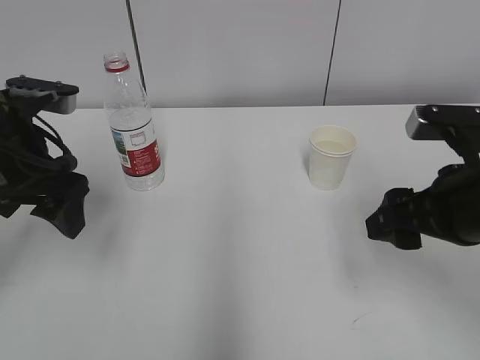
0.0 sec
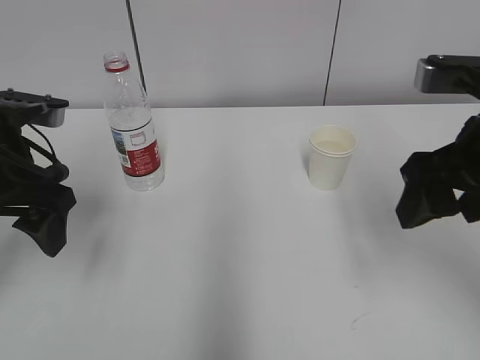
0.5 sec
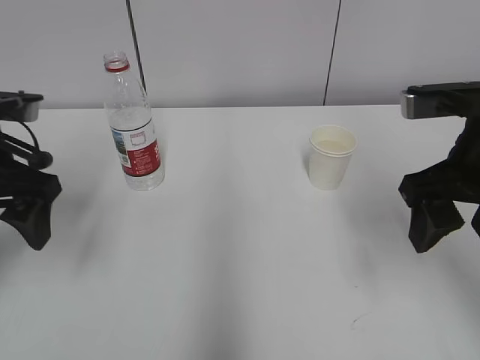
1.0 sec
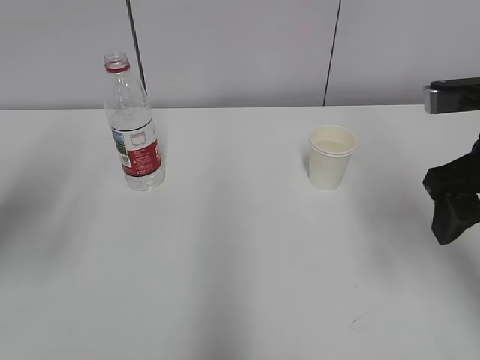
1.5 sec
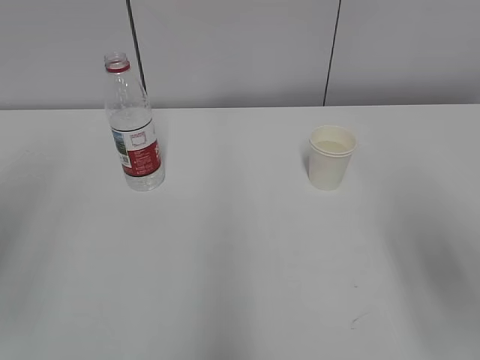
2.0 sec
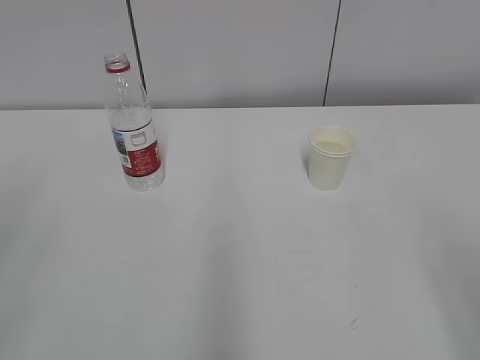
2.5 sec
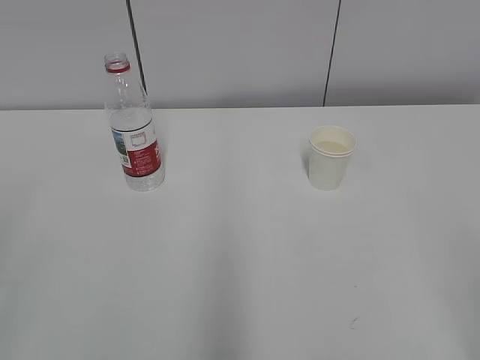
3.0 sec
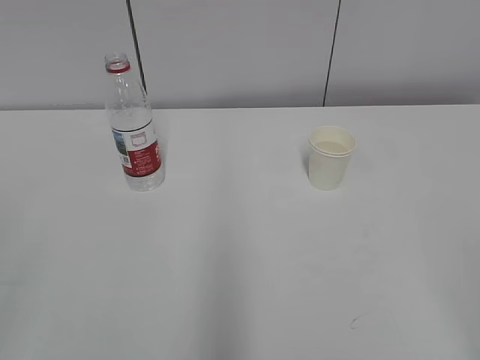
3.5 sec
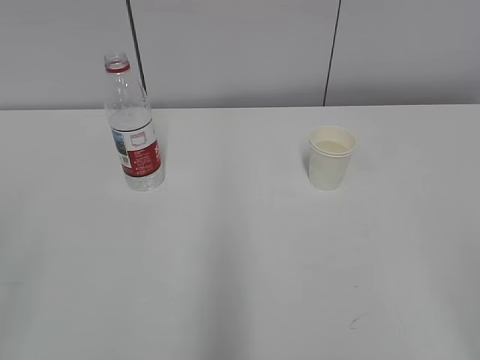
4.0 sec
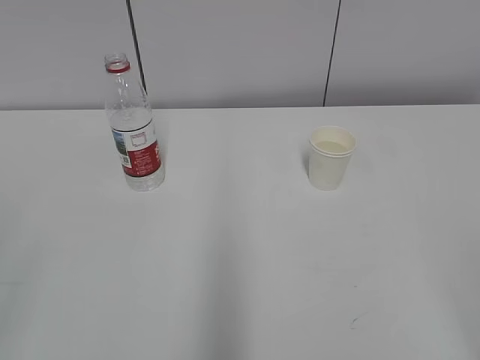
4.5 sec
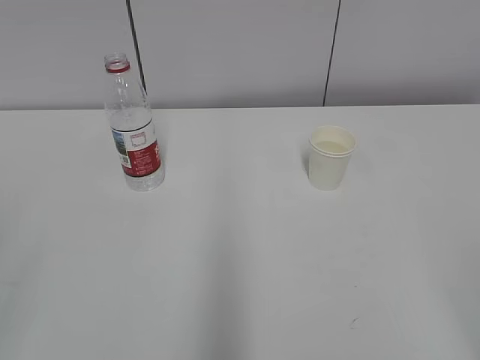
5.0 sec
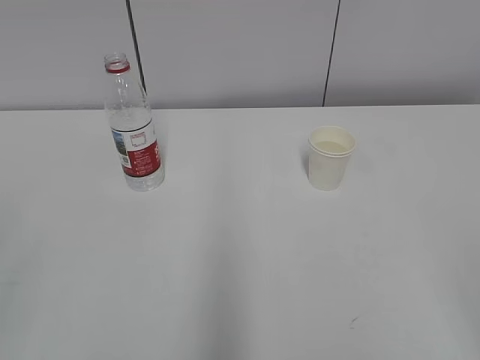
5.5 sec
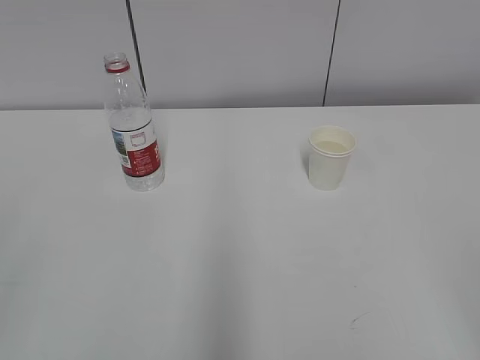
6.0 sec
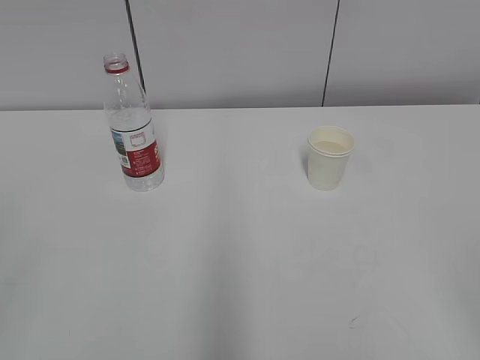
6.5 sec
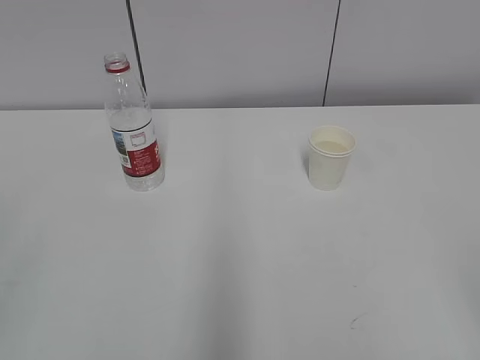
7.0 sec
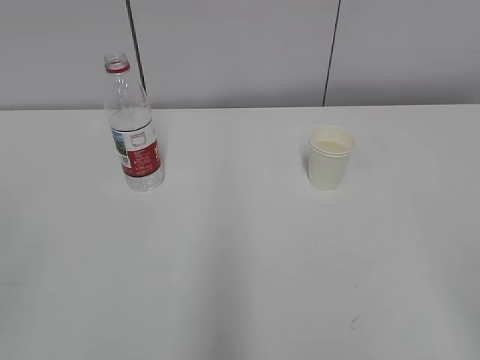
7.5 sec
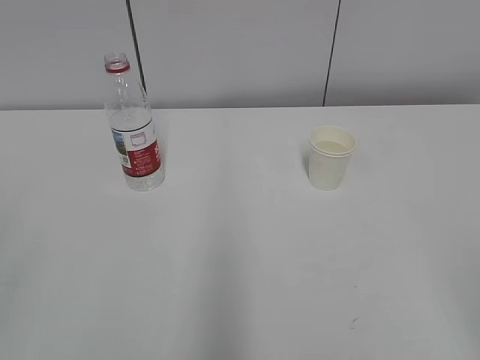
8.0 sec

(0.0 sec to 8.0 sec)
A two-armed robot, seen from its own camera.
0.0 sec - 2.0 sec: The right gripper travels backward and upward by approximately 10 cm. Meanwhile the left gripper goes roughly 20 cm backward, upward and to the left.
2.0 sec - 4.0 sec: The right gripper moves backward, about 15 cm.

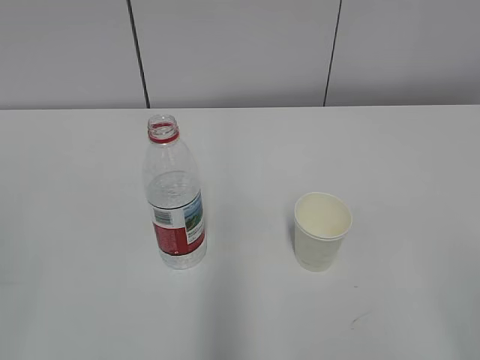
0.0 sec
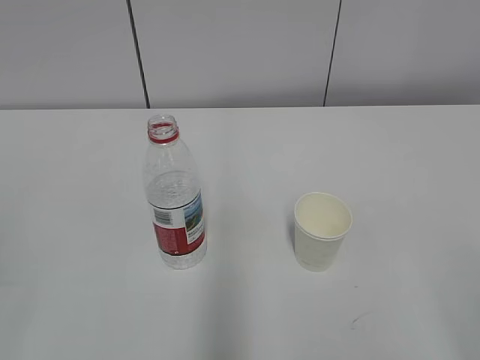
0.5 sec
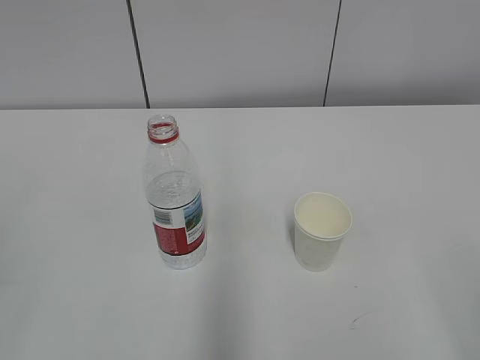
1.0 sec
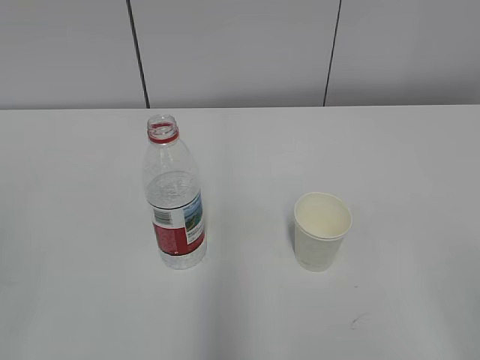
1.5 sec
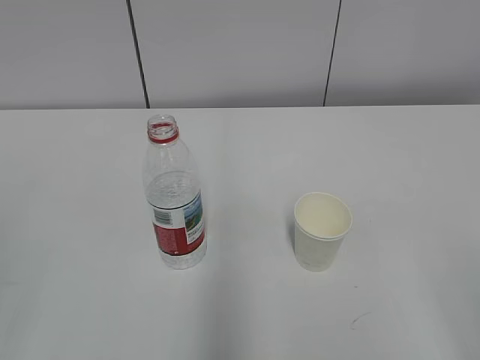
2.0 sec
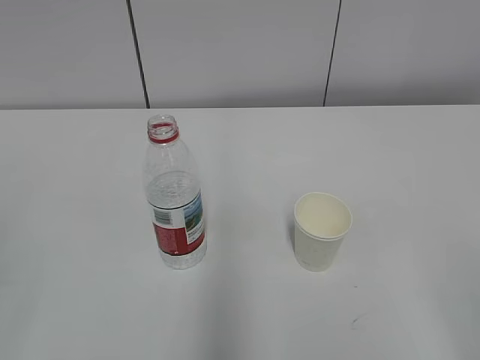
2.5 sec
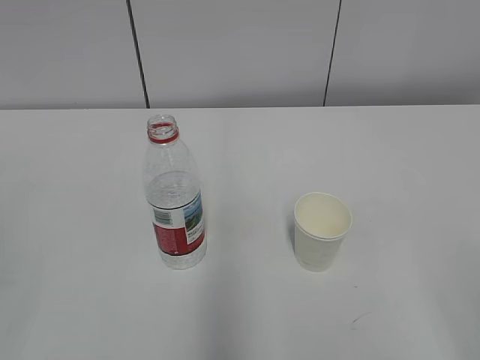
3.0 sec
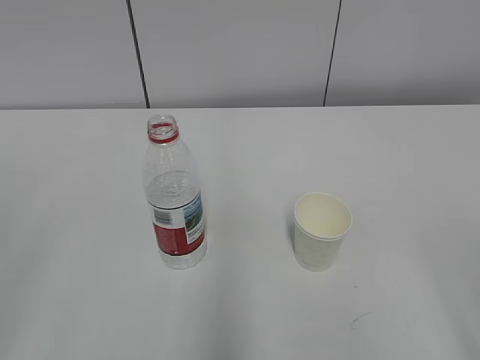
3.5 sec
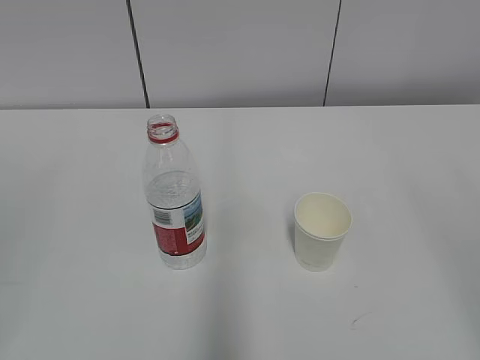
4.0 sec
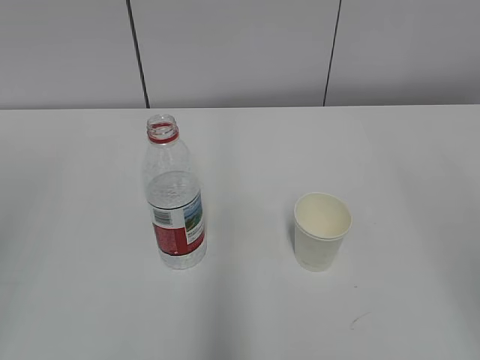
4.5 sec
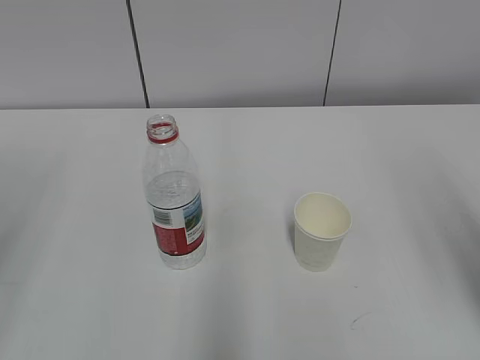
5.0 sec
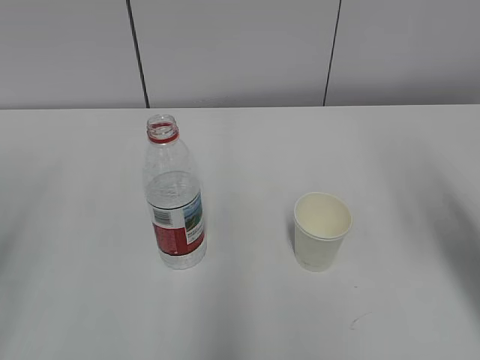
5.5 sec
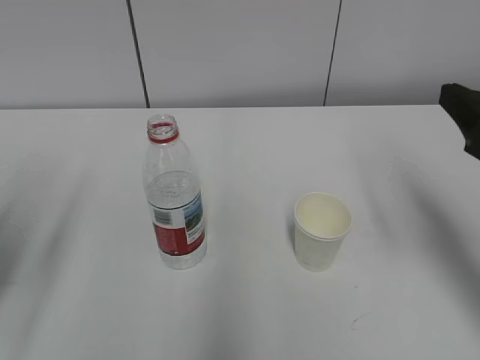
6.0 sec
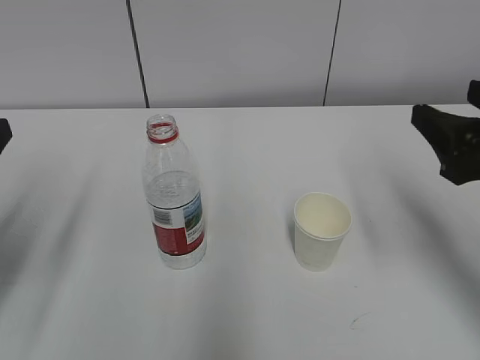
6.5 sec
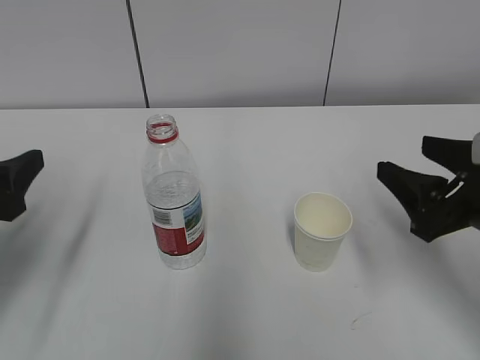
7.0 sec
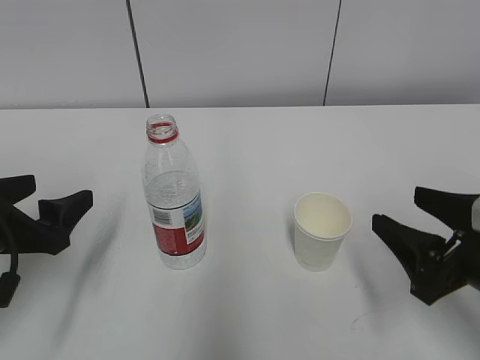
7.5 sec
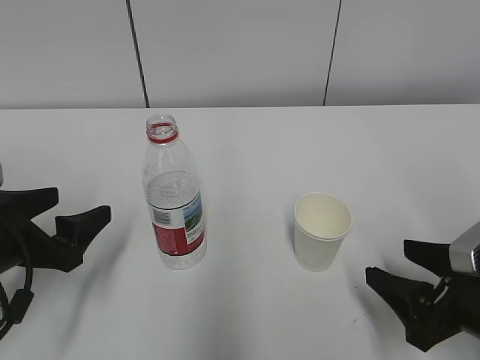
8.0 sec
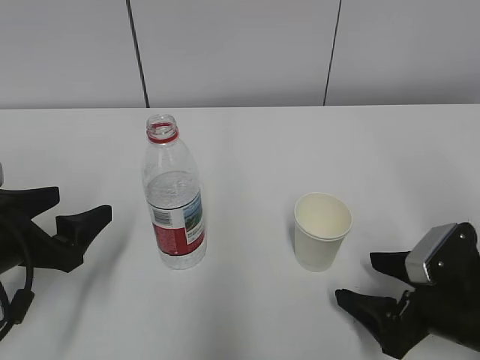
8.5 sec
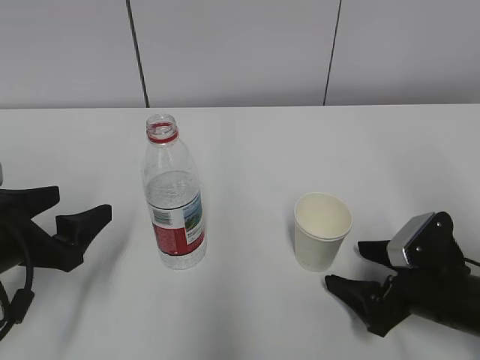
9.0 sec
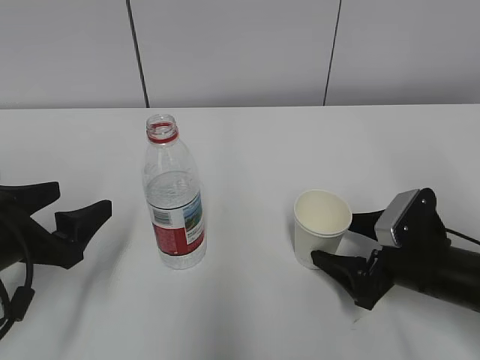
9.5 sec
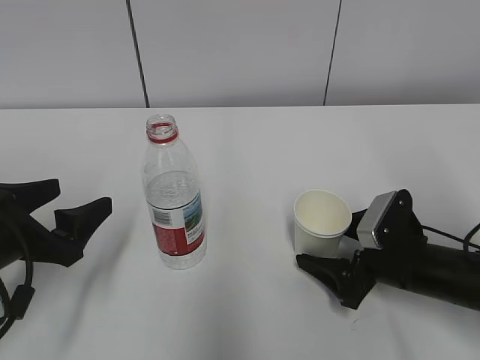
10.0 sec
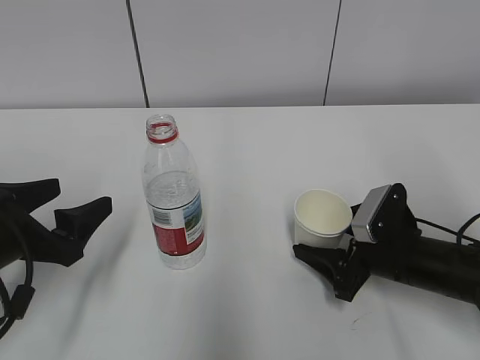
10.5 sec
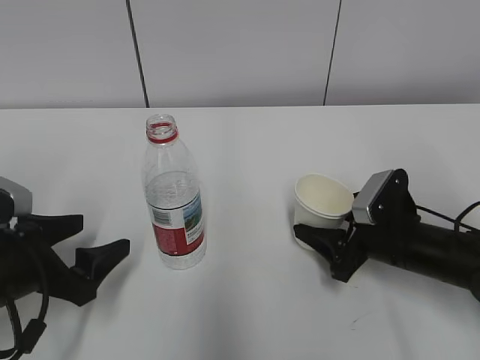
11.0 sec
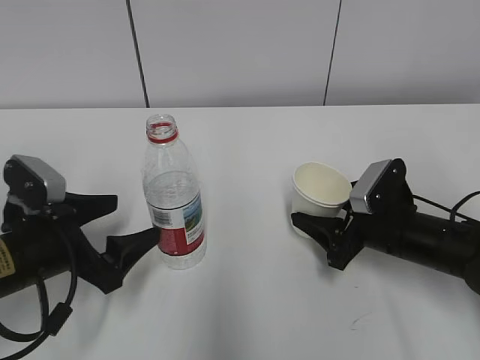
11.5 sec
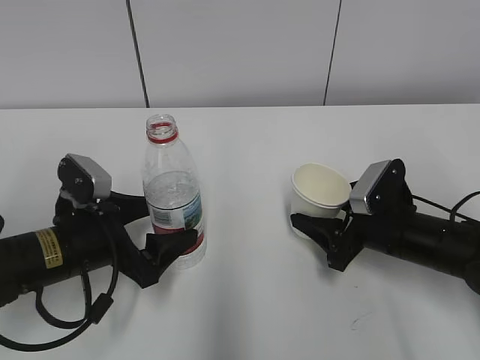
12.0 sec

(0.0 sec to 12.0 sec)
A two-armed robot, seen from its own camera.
Step, 0.0 sec - 8.5 sec: Grab the paper cup with the right hand.
Step, 9.0 sec - 11.0 sec: Grab the water bottle with the left hand.
4.0 sec - 6.0 sec: The right gripper is displaced forward by about 20 cm. Meanwhile the left gripper is displaced forward and downward by roughly 20 cm.
6.0 sec - 8.0 sec: Both grippers travel together downward, roughly 15 cm.
8.0 sec - 10.0 sec: The right gripper shifts about 10 cm forward and downward, and opens.
10.0 sec - 12.0 sec: The left gripper is displaced to the right by about 5 cm, while the right gripper closes.

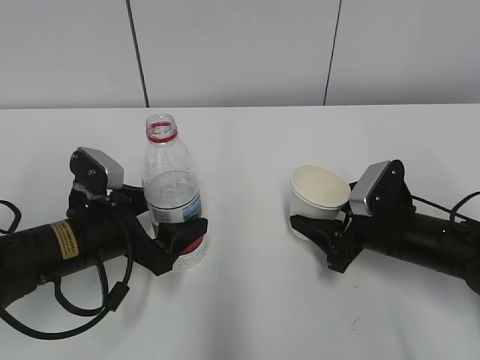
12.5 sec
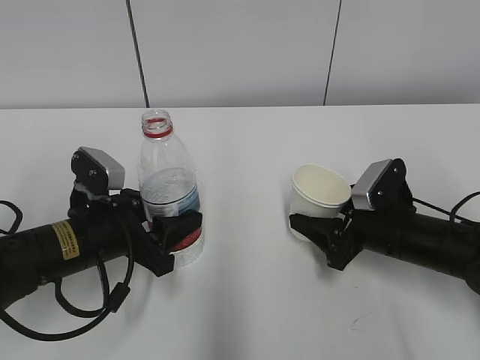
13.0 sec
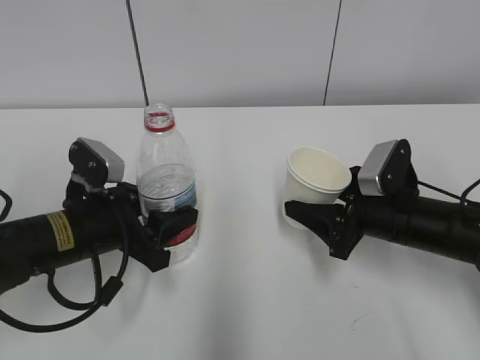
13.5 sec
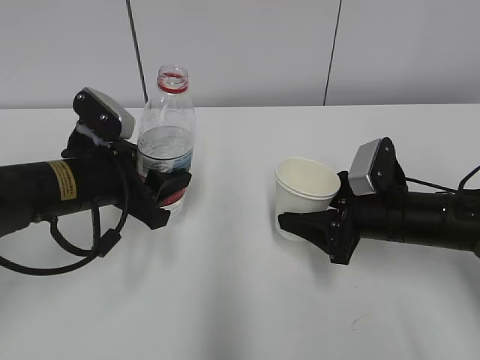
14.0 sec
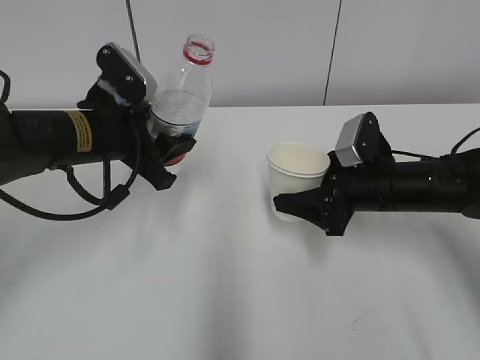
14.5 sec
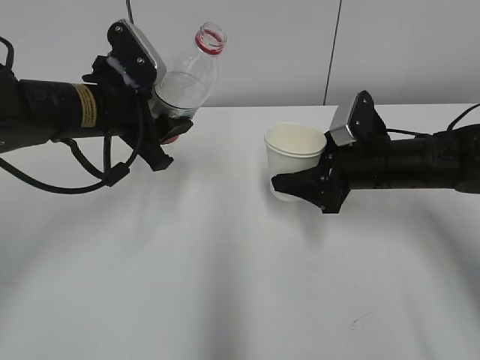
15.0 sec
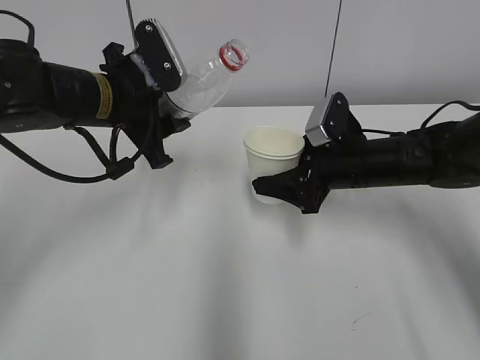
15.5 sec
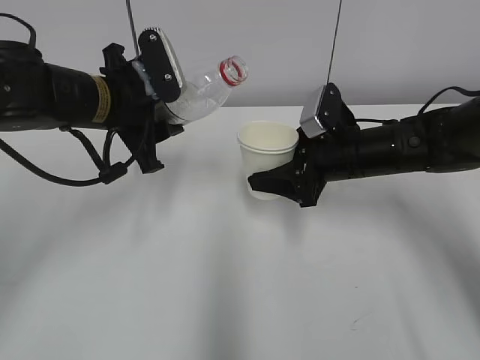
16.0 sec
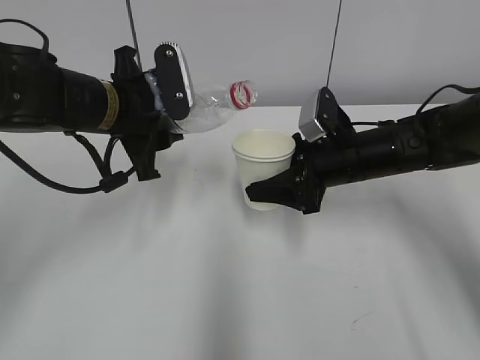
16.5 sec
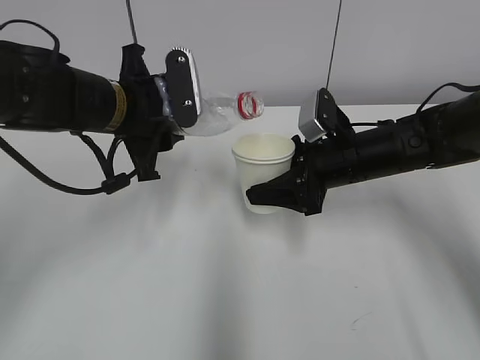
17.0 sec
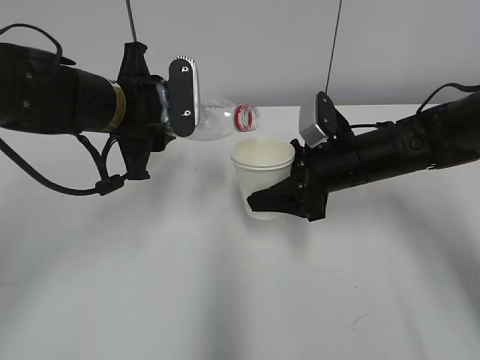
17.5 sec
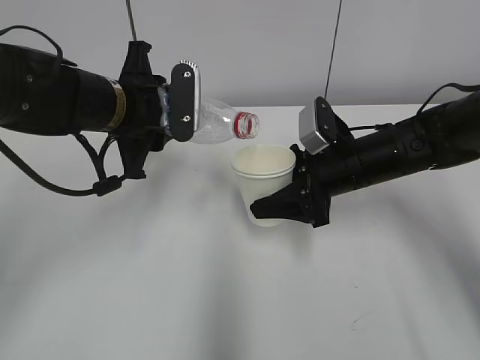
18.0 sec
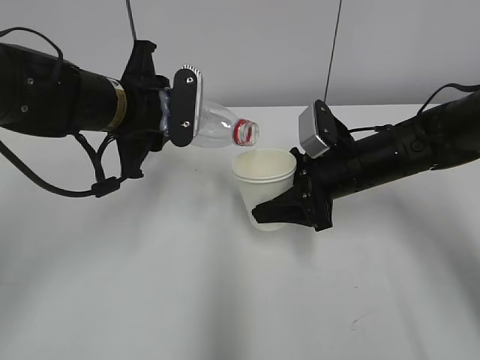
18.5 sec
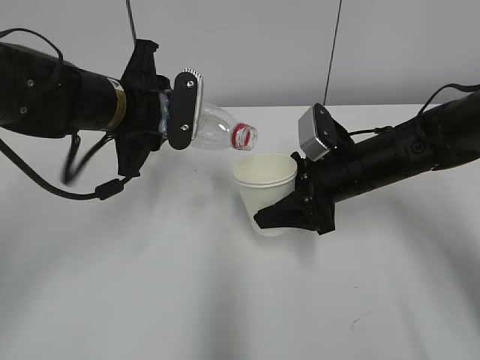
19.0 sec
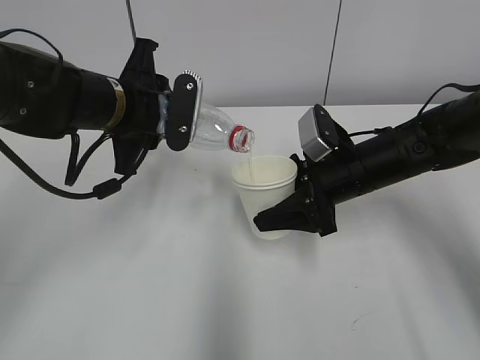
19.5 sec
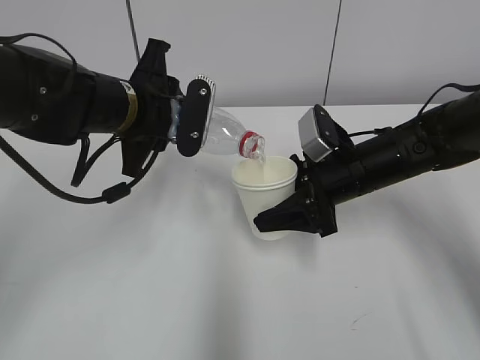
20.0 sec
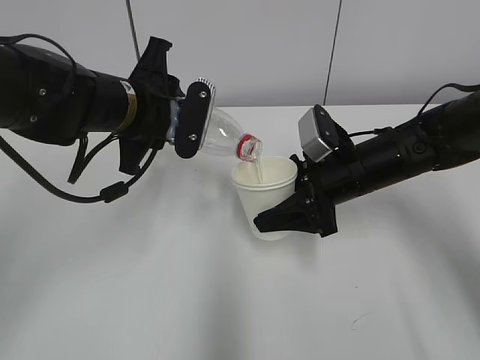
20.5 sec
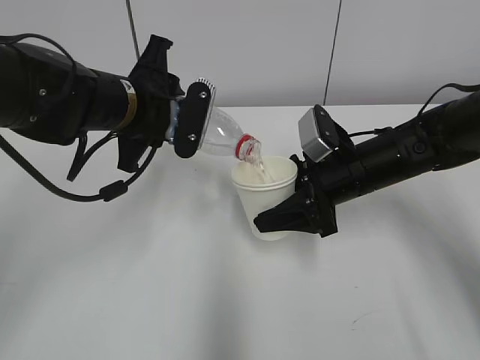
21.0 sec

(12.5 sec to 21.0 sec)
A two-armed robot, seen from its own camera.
Step, 12.5 sec - 16.0 sec: Lift the paper cup with the right hand.
12.5 sec - 14.5 sec: The left gripper is displaced upward and forward by approximately 10 cm, and closes its fingers. The right gripper changes place by roughly 5 cm.
14.5 sec - 16.5 sec: The right gripper shifts by some 5 cm.
19.0 sec - 21.0 sec: There are only small adjustments of the grippers.
